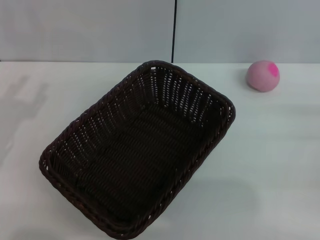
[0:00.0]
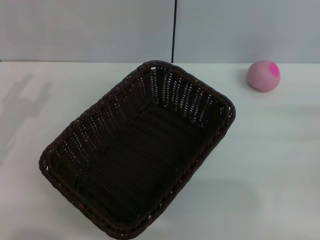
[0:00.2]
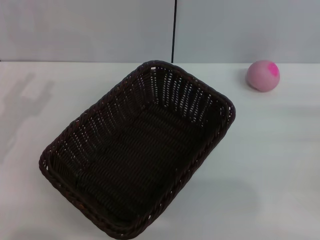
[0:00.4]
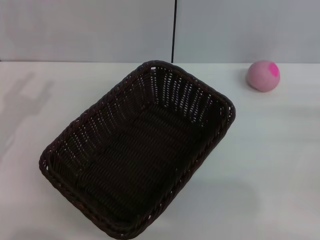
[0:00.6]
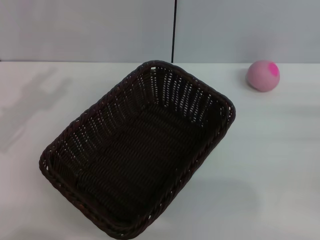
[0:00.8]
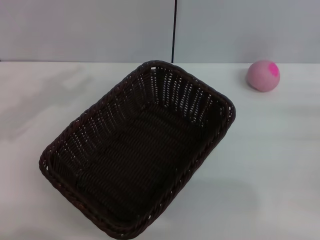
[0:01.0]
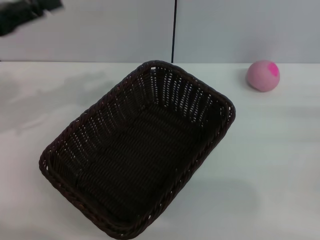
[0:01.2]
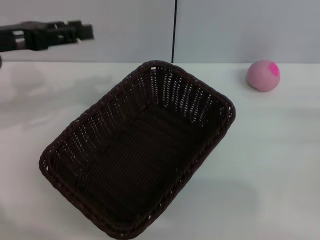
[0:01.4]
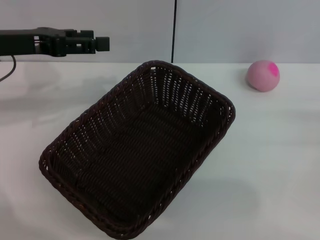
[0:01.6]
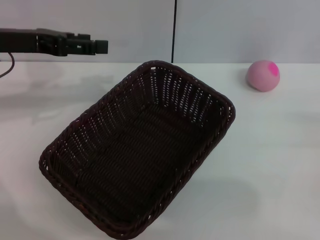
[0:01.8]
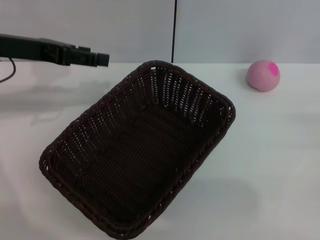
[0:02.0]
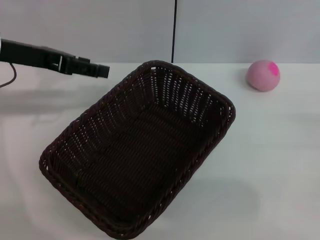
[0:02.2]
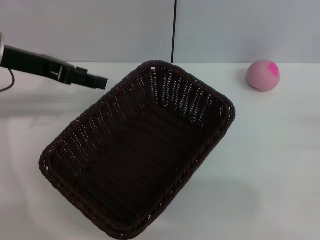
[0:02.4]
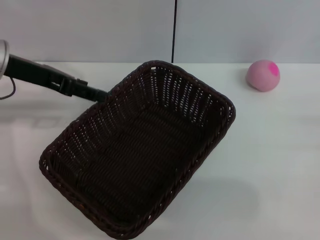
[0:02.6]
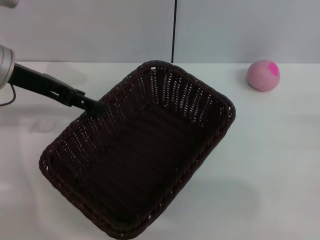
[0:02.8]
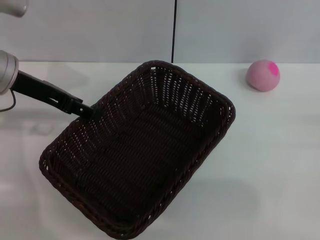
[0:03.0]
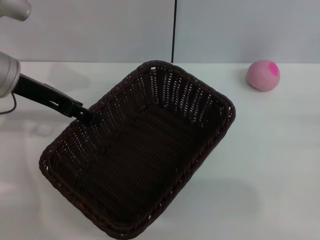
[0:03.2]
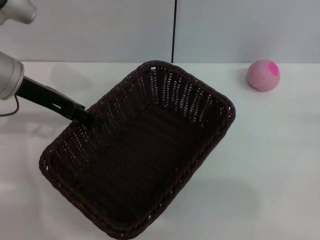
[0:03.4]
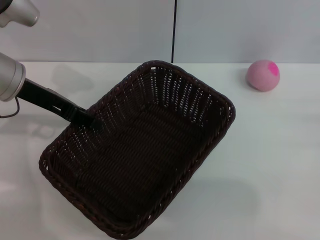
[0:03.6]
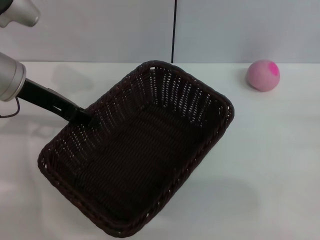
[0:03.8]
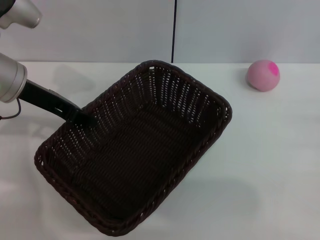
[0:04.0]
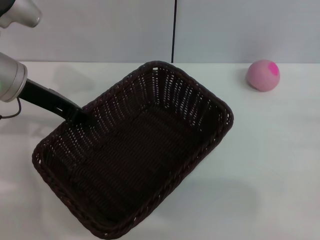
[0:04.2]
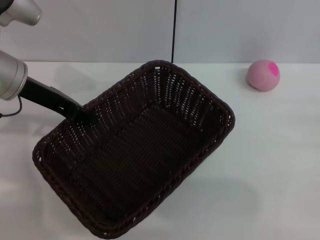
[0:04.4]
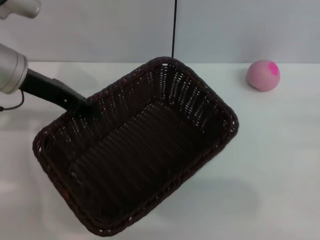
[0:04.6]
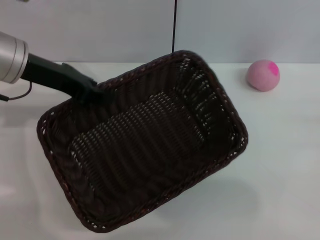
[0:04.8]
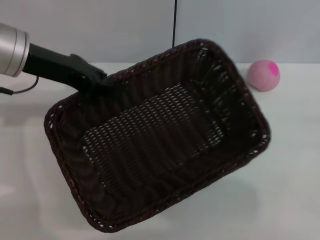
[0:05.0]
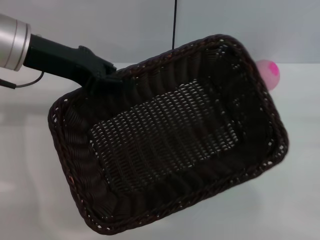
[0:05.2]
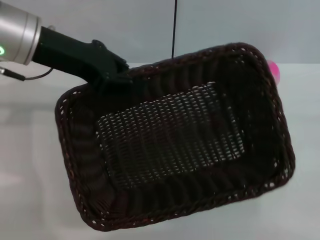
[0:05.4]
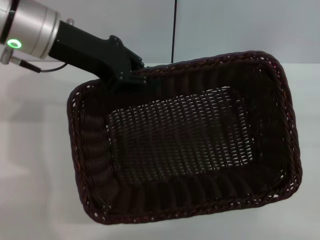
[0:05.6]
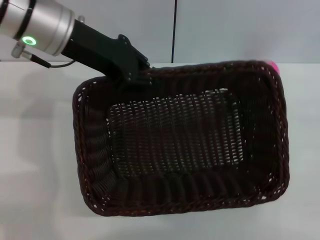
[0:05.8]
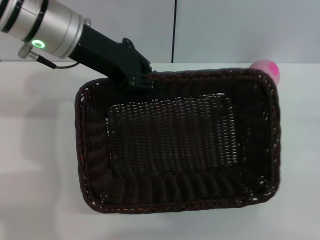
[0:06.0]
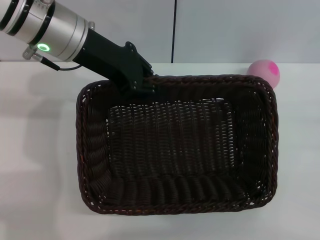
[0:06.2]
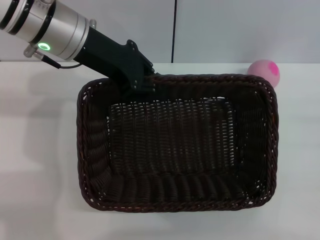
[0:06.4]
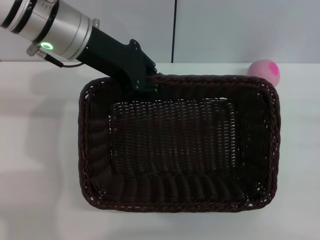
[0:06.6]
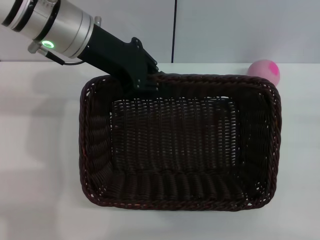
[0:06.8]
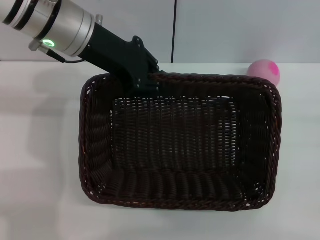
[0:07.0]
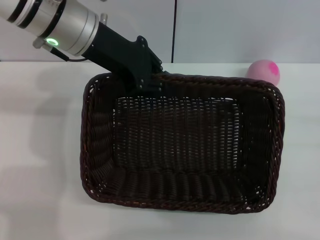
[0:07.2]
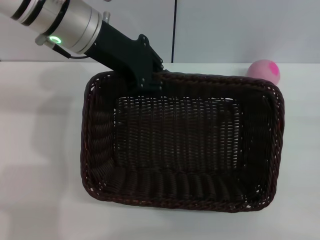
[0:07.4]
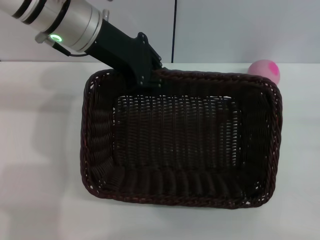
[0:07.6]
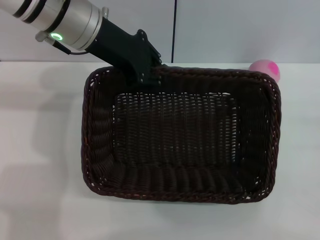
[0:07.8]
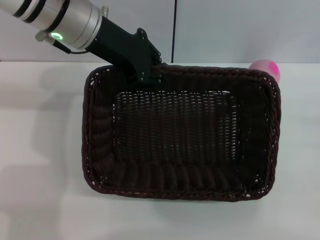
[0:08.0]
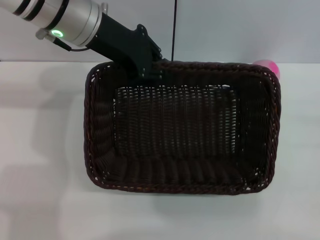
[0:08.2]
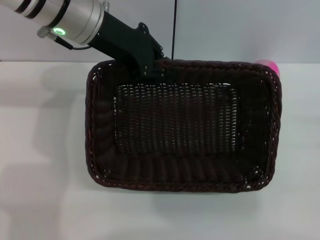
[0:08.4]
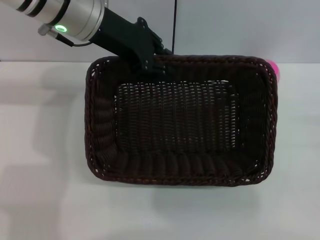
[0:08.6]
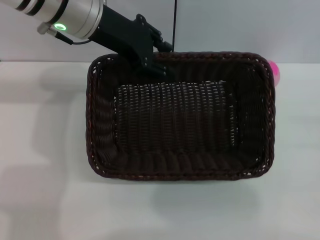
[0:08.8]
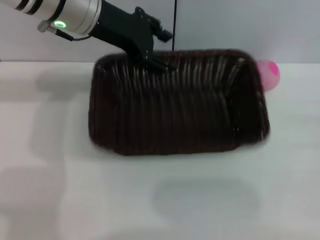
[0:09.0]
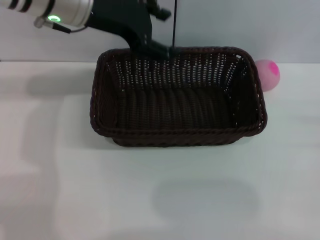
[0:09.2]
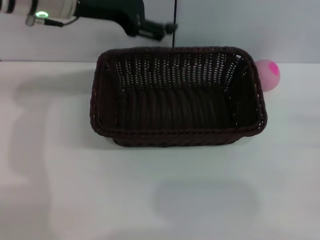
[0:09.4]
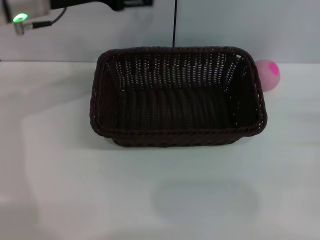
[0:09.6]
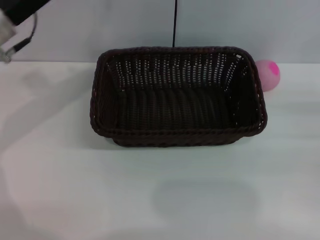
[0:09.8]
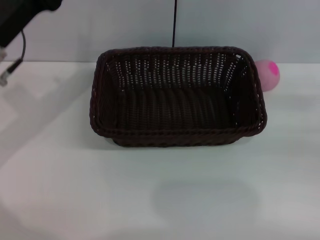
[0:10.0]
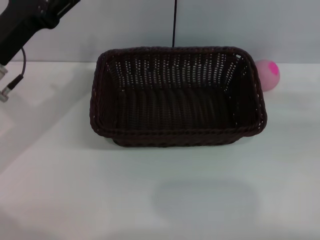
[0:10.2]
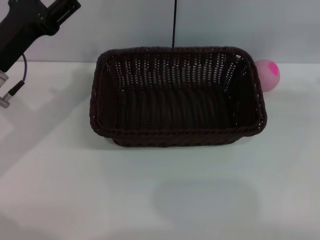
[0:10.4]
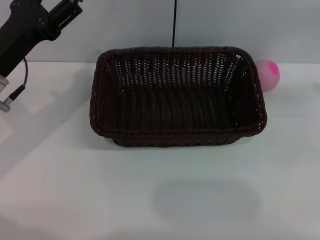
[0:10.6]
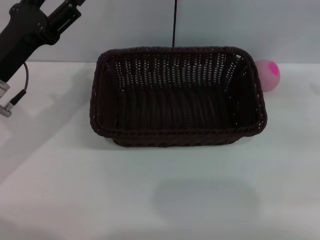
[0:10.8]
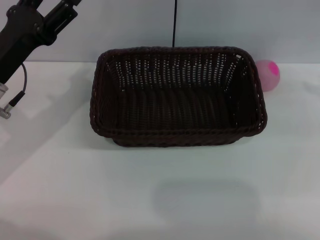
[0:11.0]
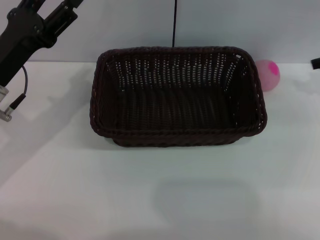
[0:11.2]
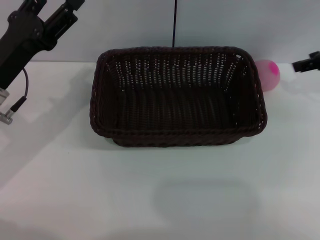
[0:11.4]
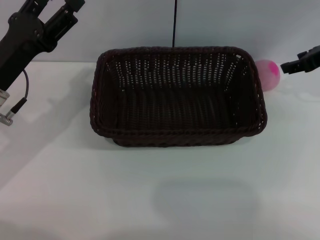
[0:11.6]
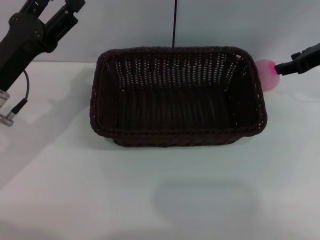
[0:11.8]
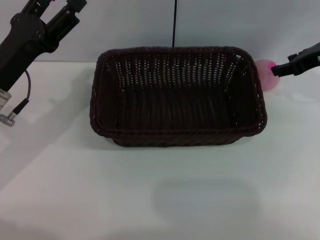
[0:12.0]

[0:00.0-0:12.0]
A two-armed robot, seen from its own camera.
Step, 0:00.0 to 0:04.4: Pick up the dark basket with the left gripper.
0:00.0 to 0:01.6: The left gripper is displaced forward, upward and to the right by about 15 cm.
0:03.0 to 0:04.4: The left gripper closes up.
0:04.4 to 0:06.0: The left gripper shifts approximately 10 cm to the right and upward.
0:06.0 to 0:07.6: There are only small adjustments of the grippers.
0:09.0 to 0:10.4: The right gripper moves upward and forward, approximately 15 cm, while the left gripper goes about 20 cm to the left, downward and backward, and opens its fingers.
0:10.4 to 0:12.0: The right gripper travels to the left and forward by about 15 cm.

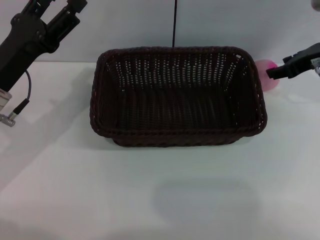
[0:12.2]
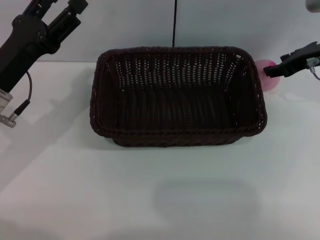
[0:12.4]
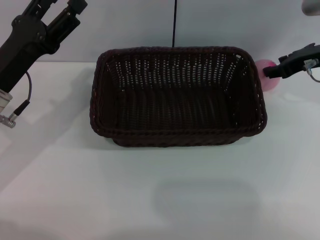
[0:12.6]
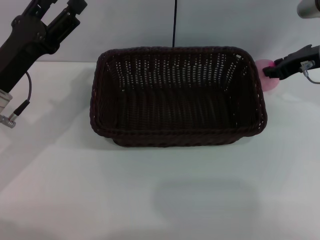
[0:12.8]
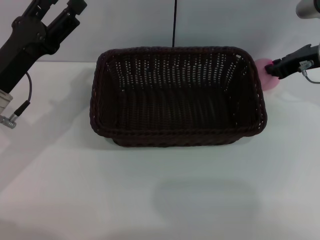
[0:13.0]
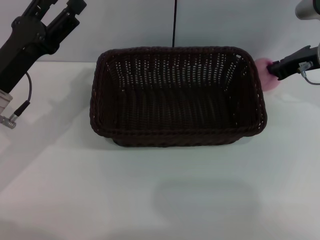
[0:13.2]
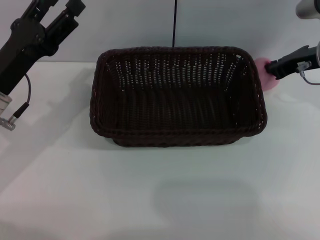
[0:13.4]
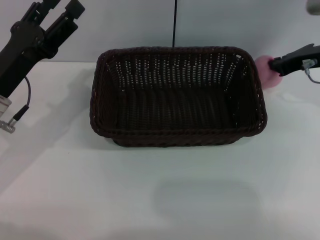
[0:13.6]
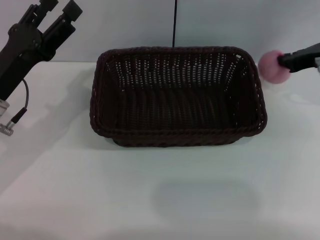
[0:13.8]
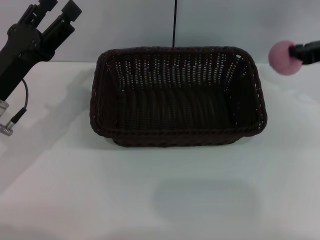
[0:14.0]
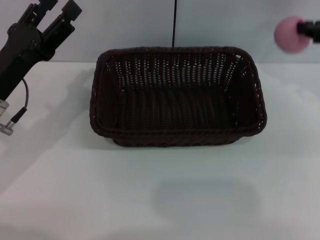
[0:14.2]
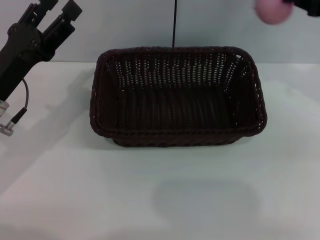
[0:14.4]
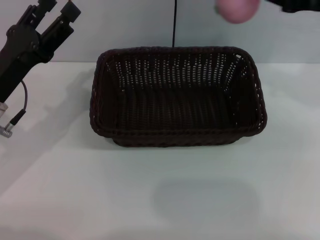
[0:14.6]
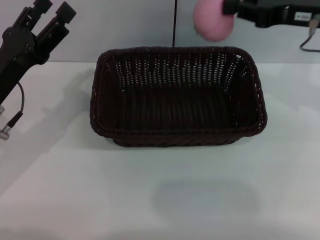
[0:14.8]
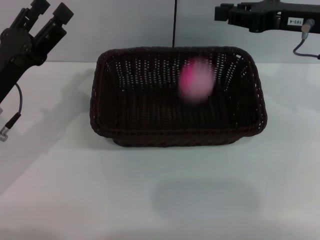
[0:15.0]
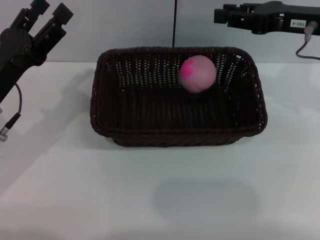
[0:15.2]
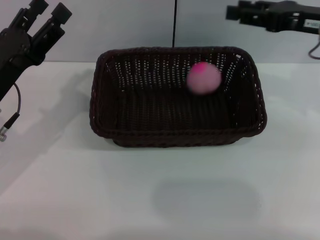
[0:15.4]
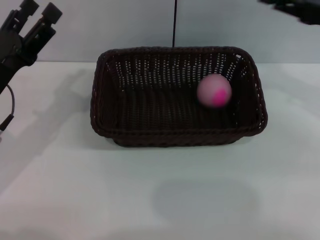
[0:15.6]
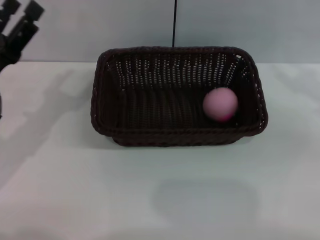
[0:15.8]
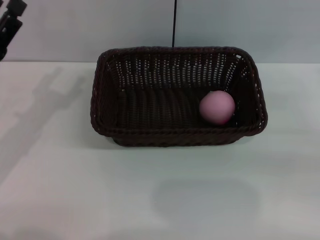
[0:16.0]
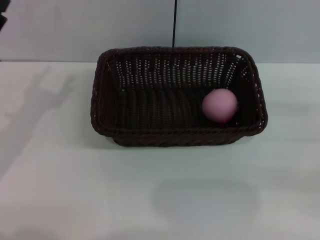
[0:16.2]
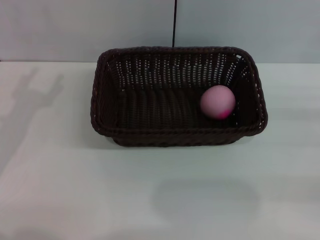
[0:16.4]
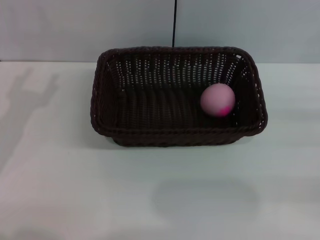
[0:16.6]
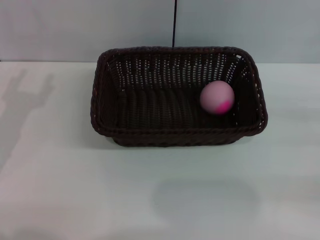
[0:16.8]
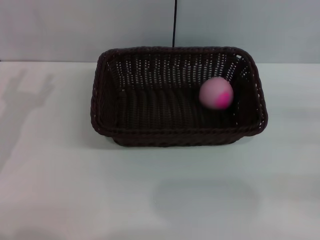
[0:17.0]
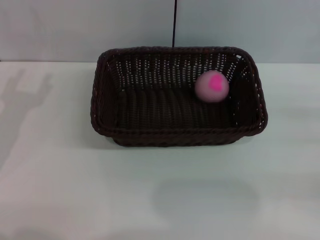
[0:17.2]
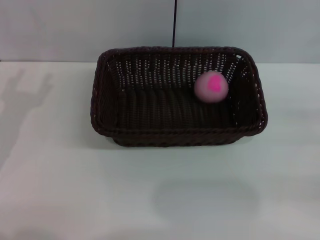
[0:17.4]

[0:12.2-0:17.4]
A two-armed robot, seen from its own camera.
0:12.2 to 0:14.0: The right gripper closes its fingers.
0:14.0 to 0:15.6: The right gripper opens up.
0:15.6 to 0:17.4: The right gripper goes roughly 20 cm downward, backward and to the right.

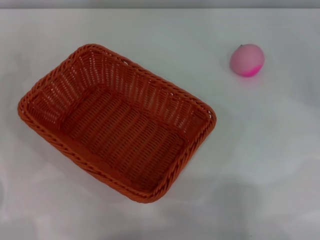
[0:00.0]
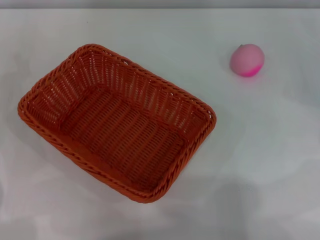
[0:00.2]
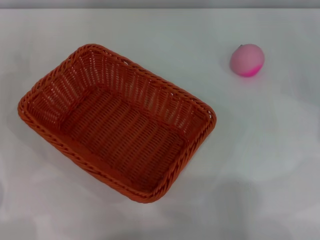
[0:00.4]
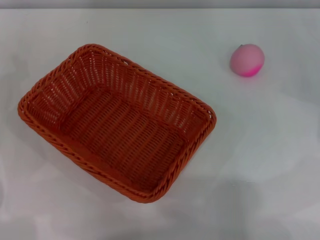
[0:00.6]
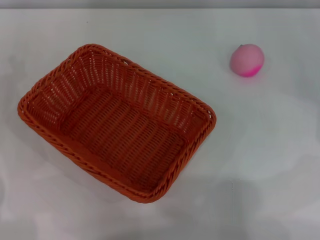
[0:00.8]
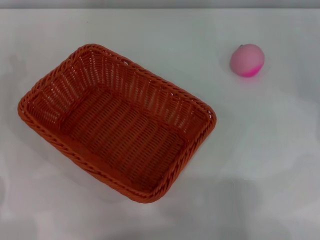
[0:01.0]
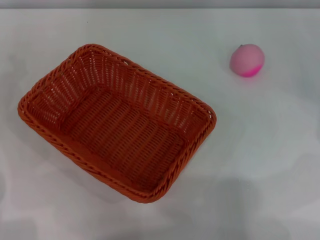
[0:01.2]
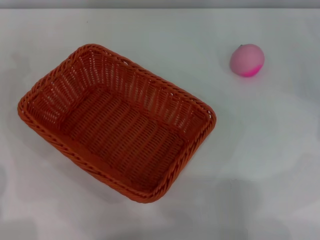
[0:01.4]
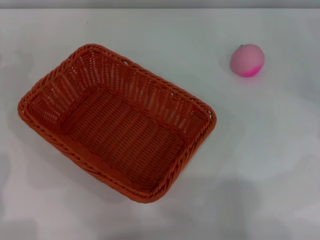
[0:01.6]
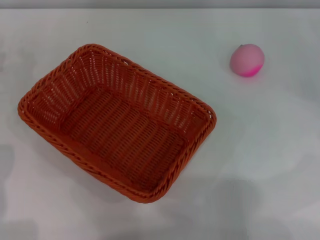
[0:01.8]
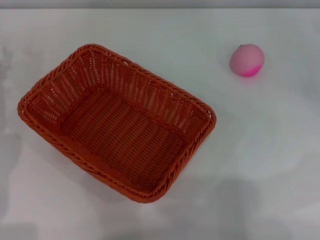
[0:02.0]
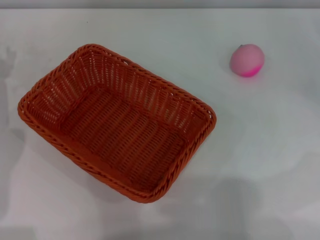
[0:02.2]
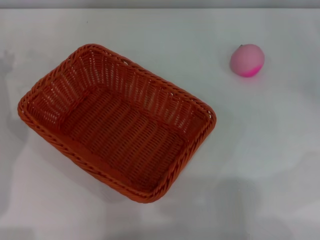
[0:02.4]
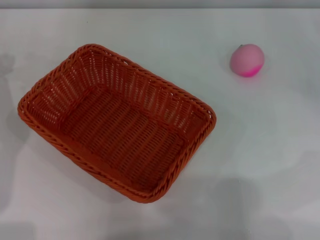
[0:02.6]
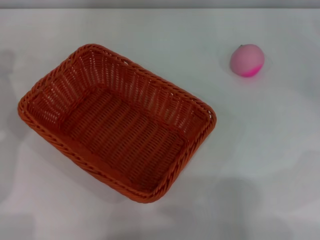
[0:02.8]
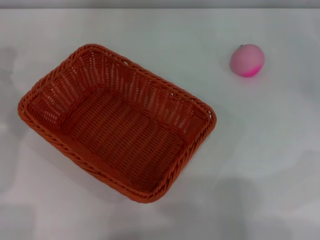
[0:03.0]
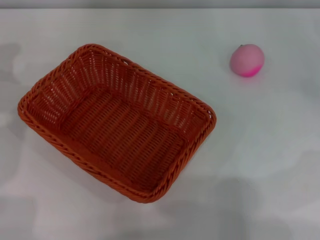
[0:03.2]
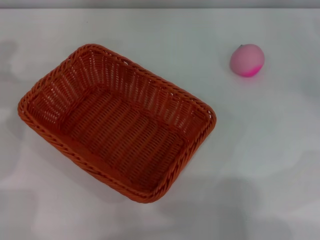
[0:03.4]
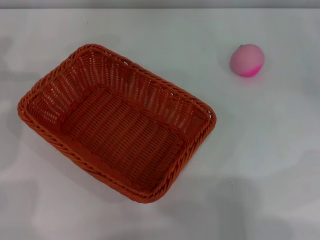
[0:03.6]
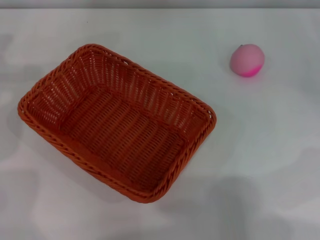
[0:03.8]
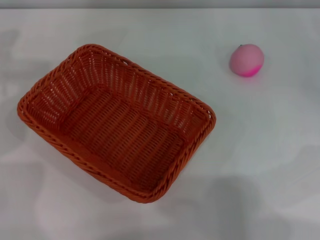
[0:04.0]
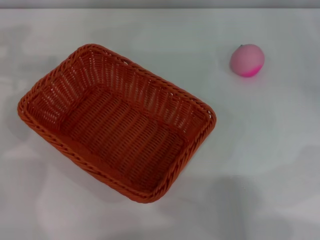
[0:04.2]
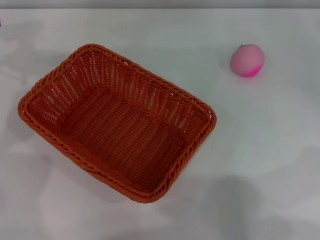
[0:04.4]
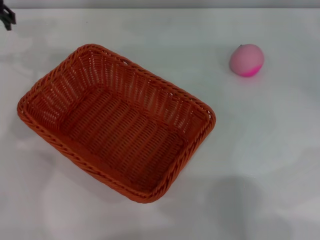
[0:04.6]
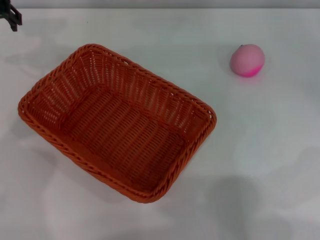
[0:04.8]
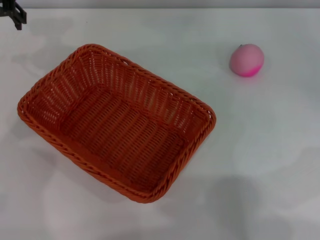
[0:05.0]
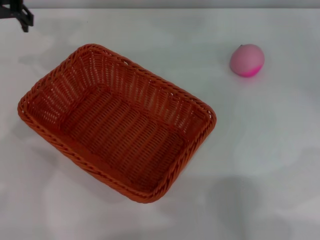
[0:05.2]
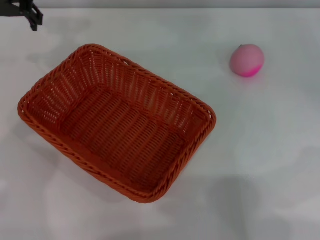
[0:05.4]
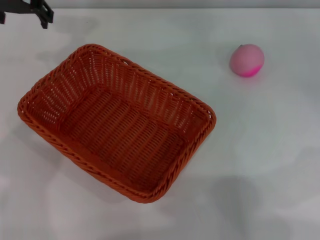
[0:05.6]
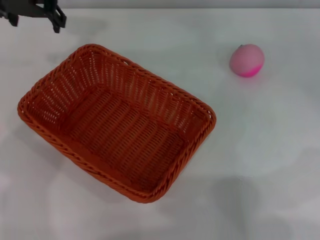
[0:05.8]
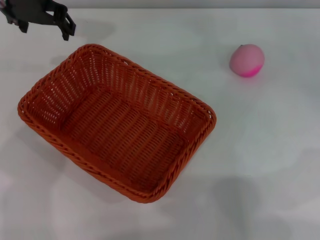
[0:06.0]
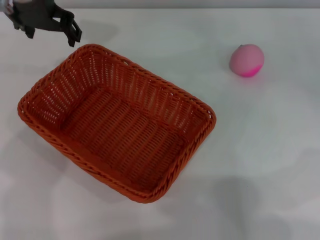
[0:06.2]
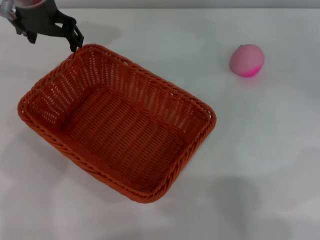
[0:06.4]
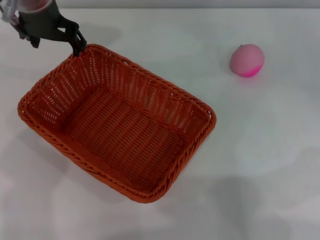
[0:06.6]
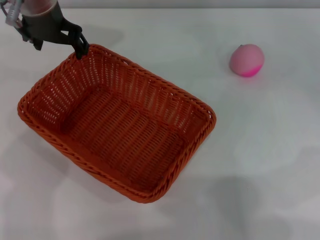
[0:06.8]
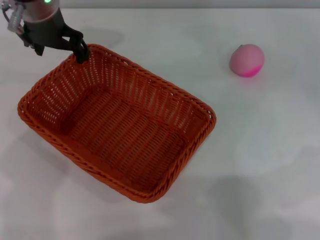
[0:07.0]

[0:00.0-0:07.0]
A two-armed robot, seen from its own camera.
0:04.2 to 0:05.6: The left gripper moves to the right, about 10 cm.
0:05.6 to 0:07.0: The left gripper ends up approximately 5 cm from where it was.
